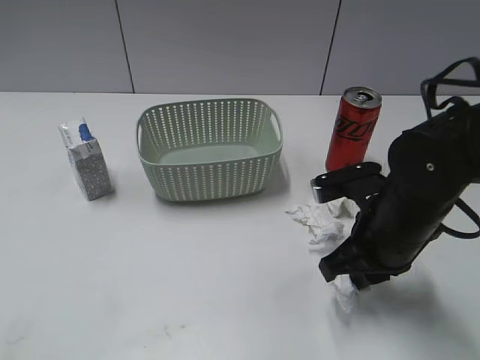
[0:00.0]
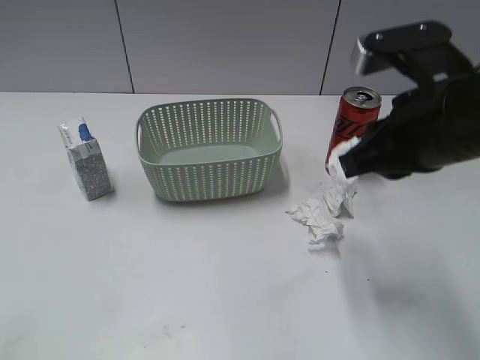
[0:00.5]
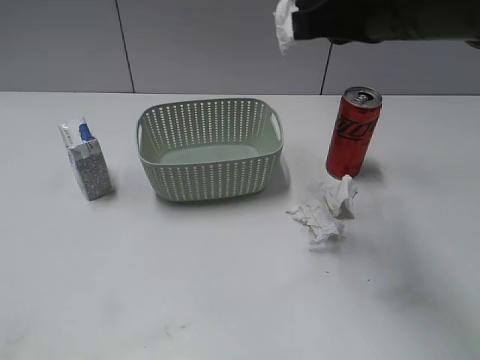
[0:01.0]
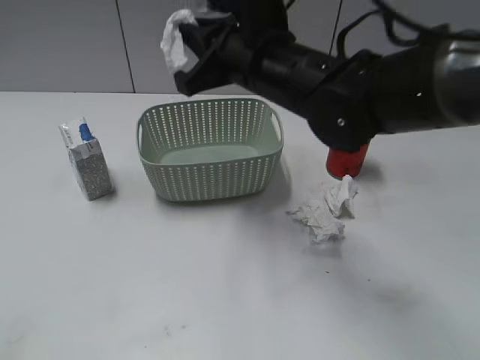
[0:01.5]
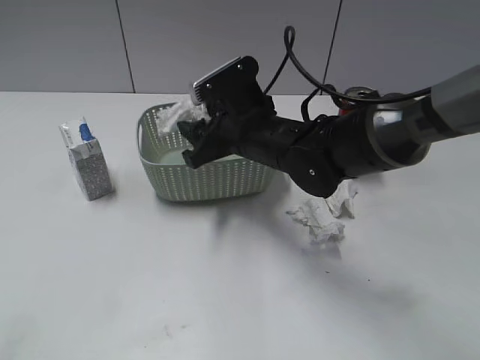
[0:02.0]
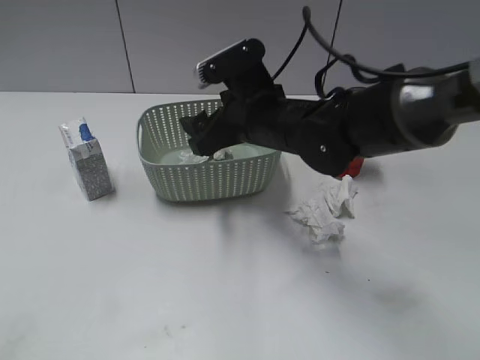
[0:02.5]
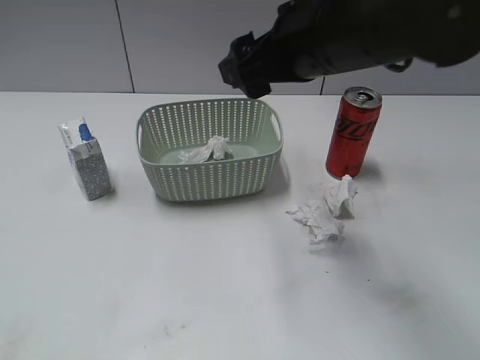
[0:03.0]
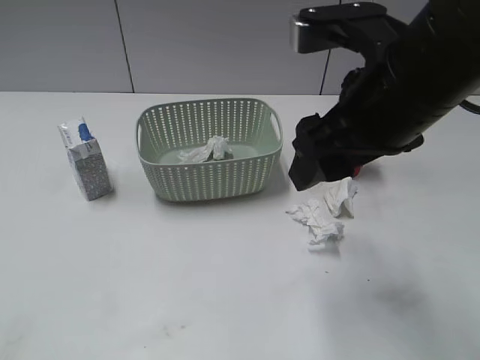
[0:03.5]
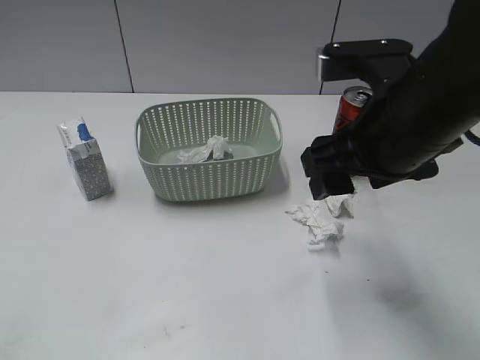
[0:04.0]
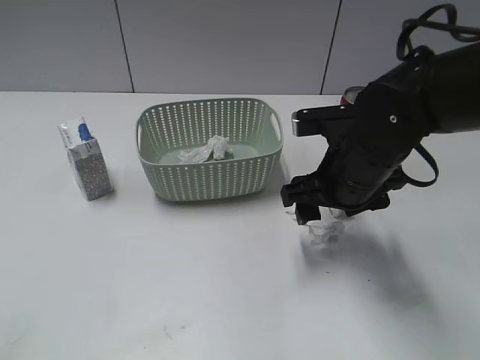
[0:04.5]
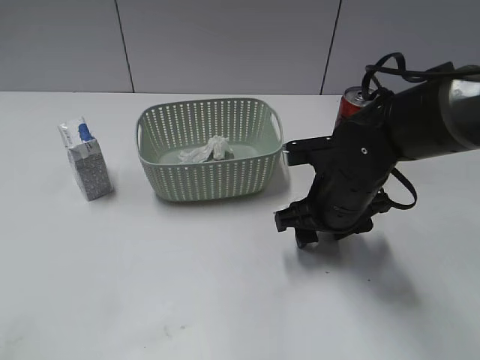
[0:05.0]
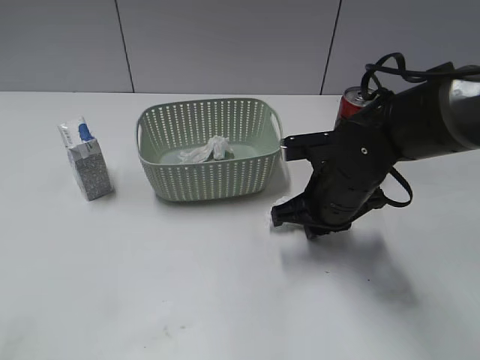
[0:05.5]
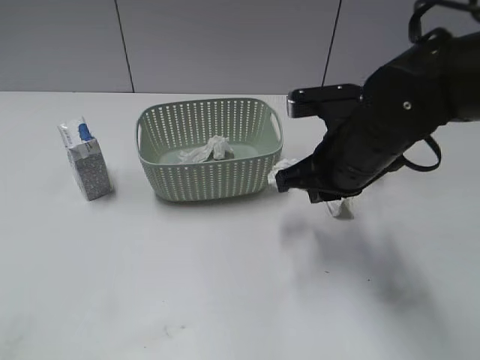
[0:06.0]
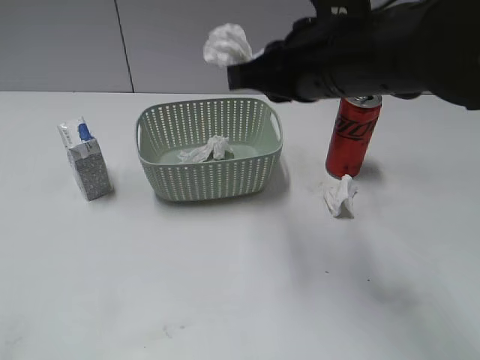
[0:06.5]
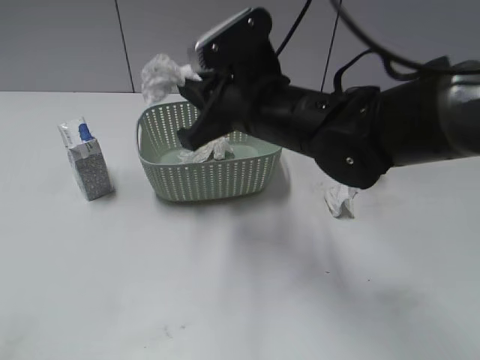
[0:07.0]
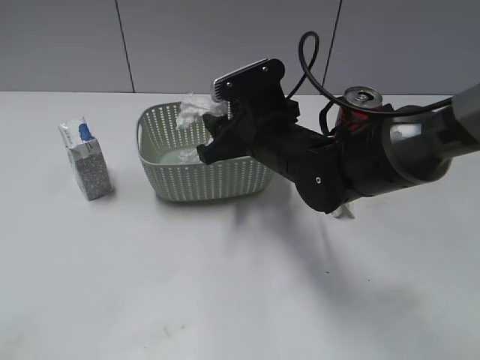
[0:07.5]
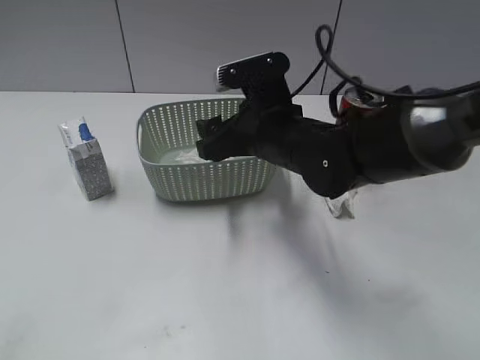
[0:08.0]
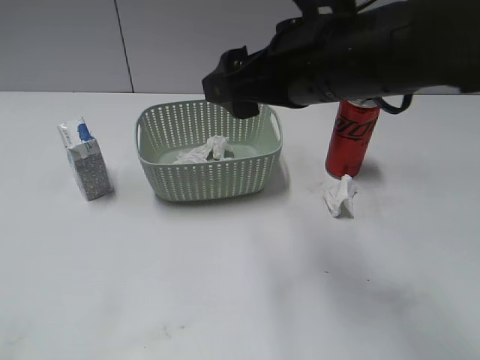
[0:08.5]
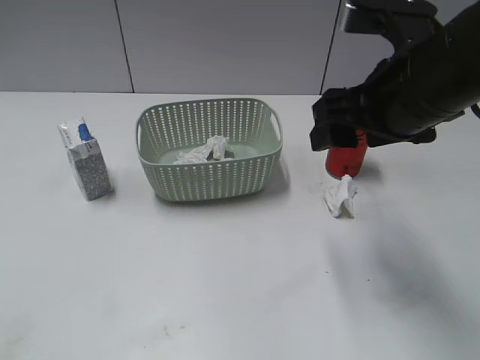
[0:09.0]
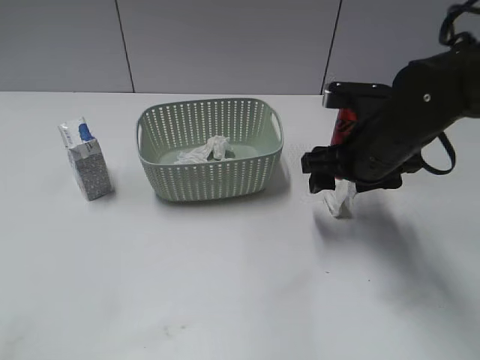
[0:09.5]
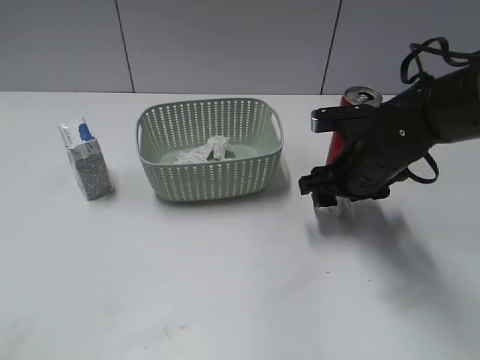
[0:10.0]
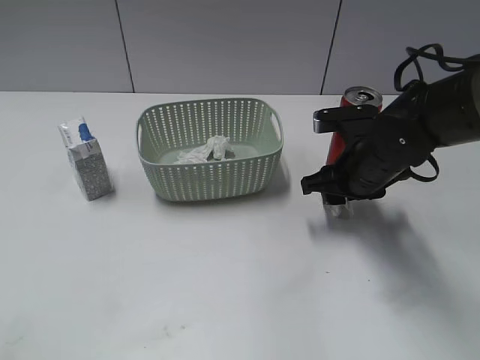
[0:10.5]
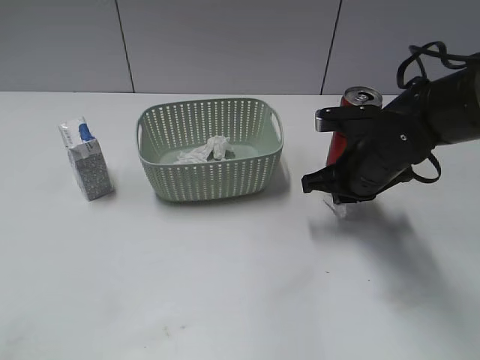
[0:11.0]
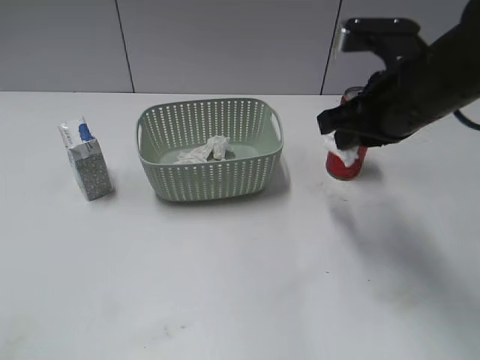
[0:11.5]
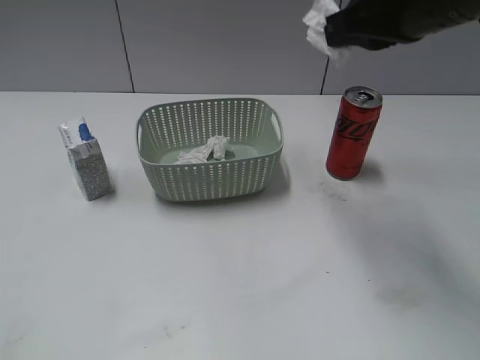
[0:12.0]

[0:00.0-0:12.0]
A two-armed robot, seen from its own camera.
Step, 0:00.5 to 0:02.0: Place the waste paper in the basket with right gripper.
Step, 0:02.5 to 0:05.5: Grasp the waste paper with right gripper.
Step, 0:06.0 to 0:08.0: Place the waste paper in the basket with right gripper.
Step, 0:08.5 to 0:10.5: Grasp the waste paper with right gripper.
0:00.0 to 0:02.0: The right gripper moves to the left and forward, approximately 15 cm, moves about 20 cm upward and comes back, and opens its fingers.
0:02.0 to 0:04.0: The right gripper heads upward, backward and to the right, covering some 20 cm.
0:04.0 to 0:06.0: The right gripper shifts roughly 10 cm downward and forward, and closes its fingers.
0:06.0 to 0:08.0: The right gripper moves to the left, roughly 5 cm, reaches roughly 10 cm upward, then returns, and opens.
0:08.0 to 0:10.0: The right gripper travels to the right by approximately 10 cm, and goes upward and returns, roughly 15 cm each way.
0:10.0 to 0:12.0: The right gripper is displaced upward by roughly 20 cm, and closes up.

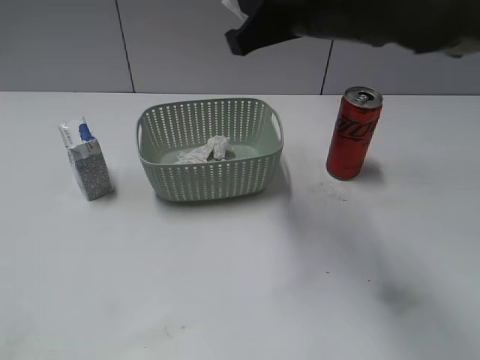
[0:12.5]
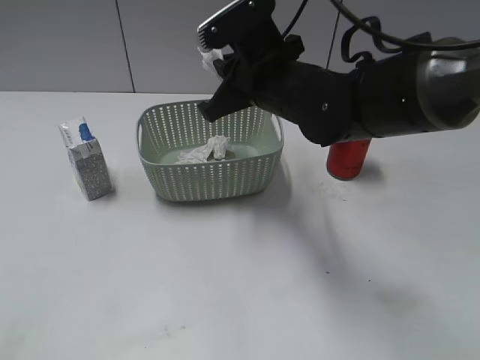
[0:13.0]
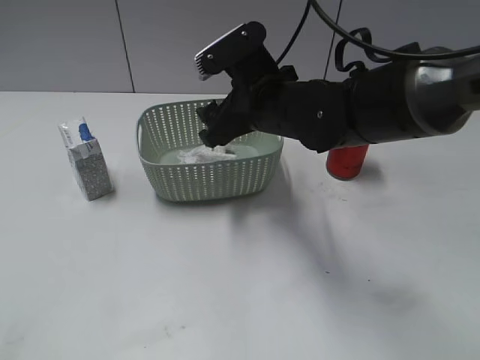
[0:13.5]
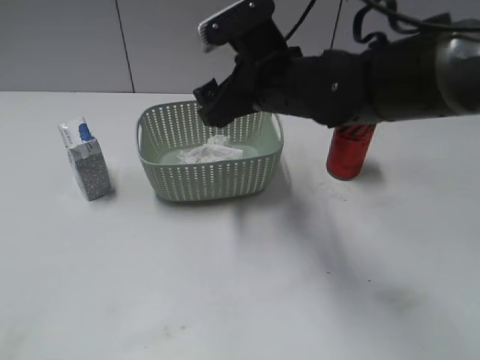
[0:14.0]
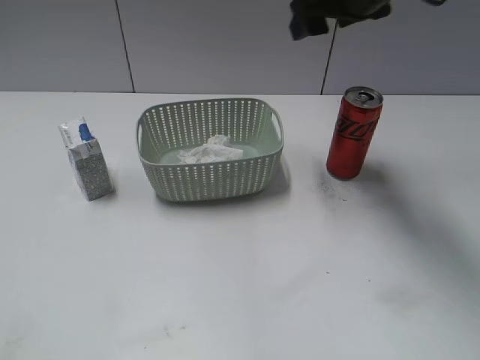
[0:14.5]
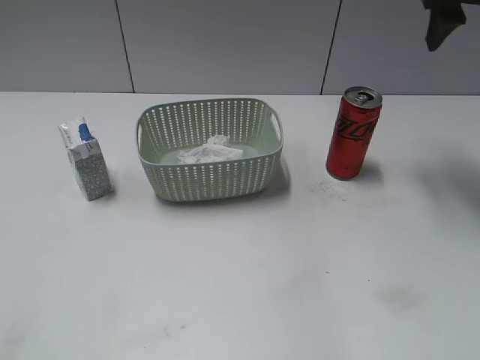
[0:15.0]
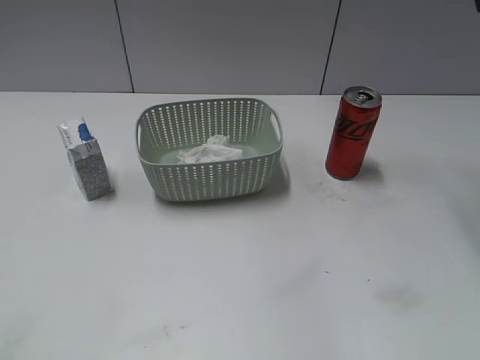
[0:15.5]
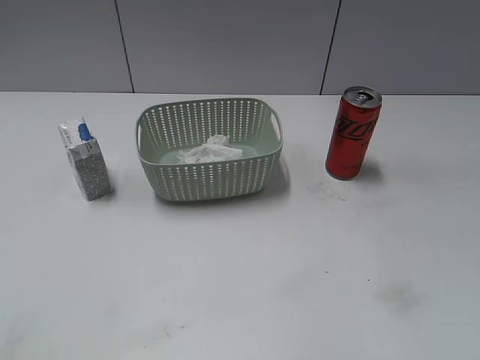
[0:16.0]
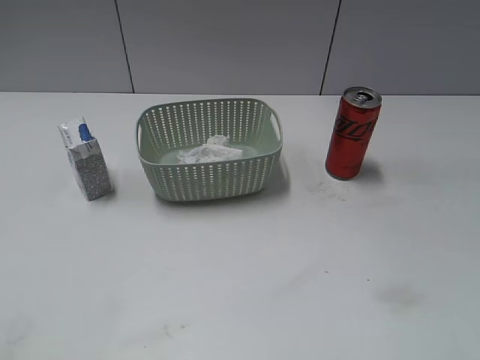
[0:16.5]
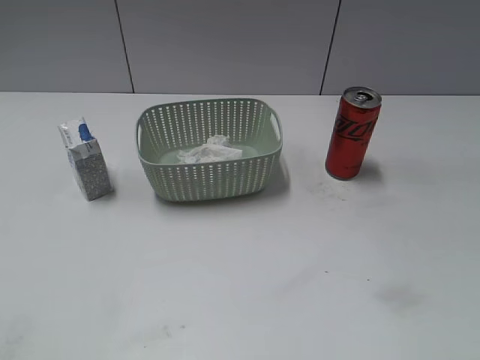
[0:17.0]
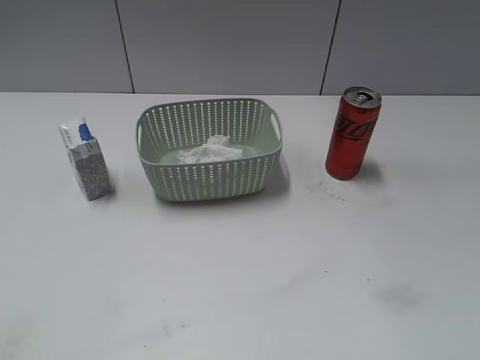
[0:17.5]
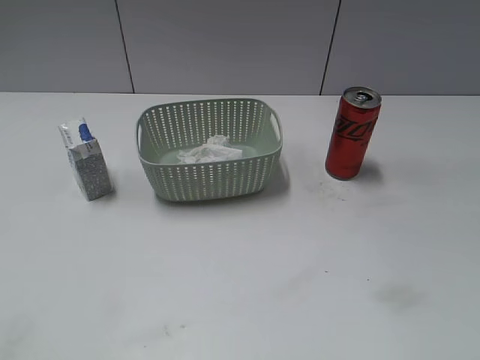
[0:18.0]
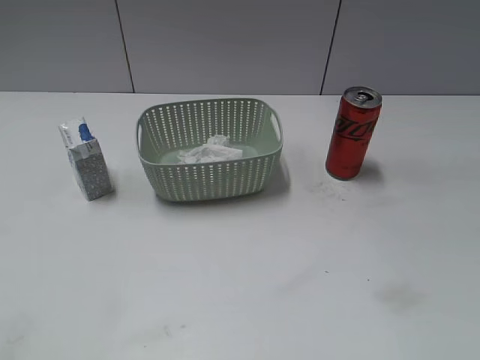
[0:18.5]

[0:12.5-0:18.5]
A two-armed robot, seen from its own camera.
0:12.5 to 0:14.5: The right gripper travels forward by some 10 cm, reaches roughly 10 cm downward, then returns, and opens its fingers.
0:14.5 to 0:16.5: The right gripper heads backward and to the right, covering roughly 35 cm.

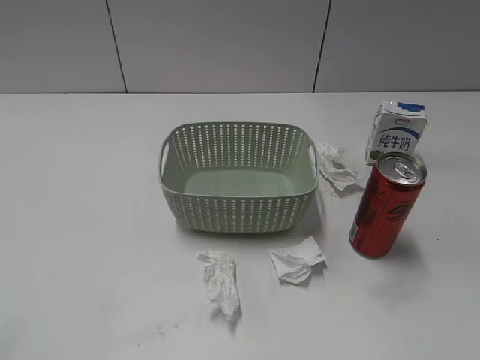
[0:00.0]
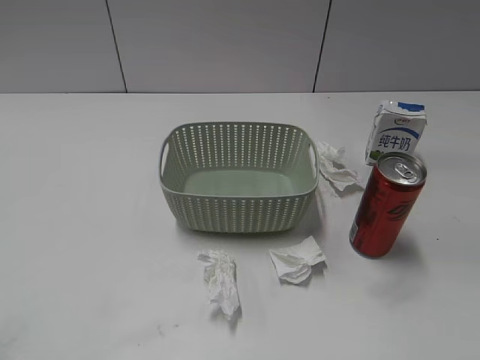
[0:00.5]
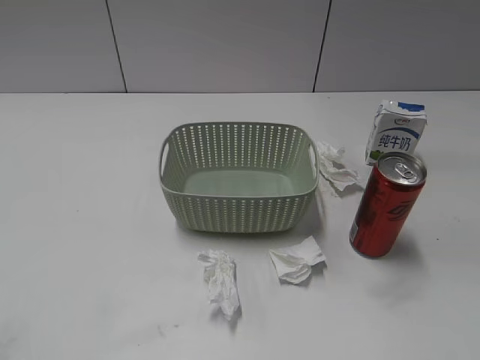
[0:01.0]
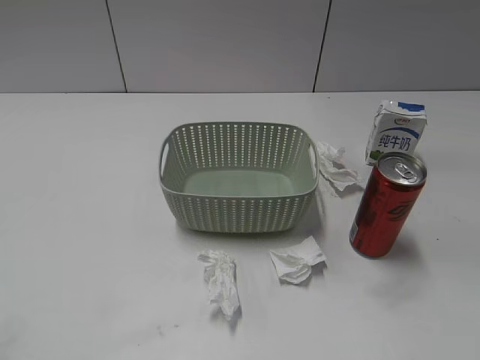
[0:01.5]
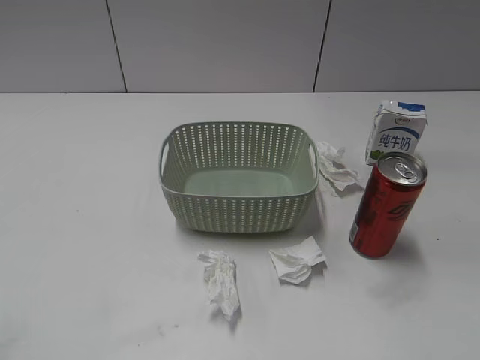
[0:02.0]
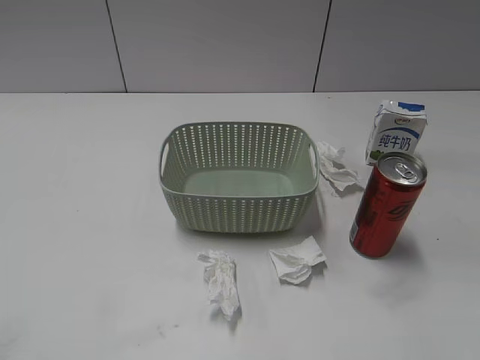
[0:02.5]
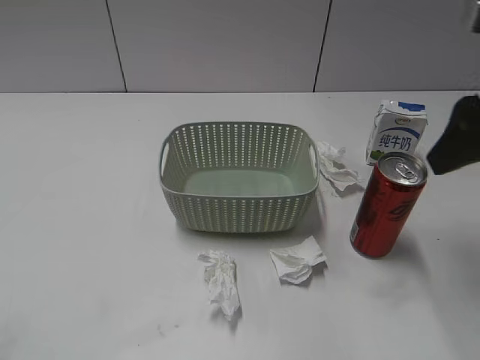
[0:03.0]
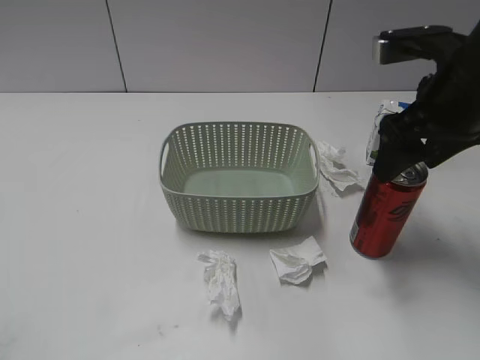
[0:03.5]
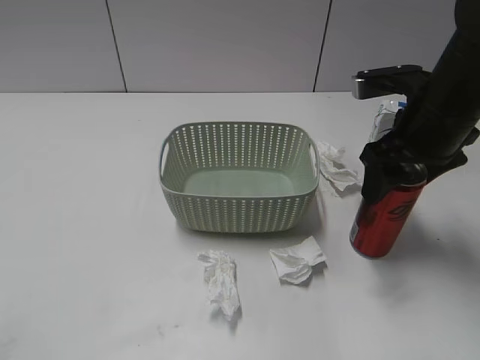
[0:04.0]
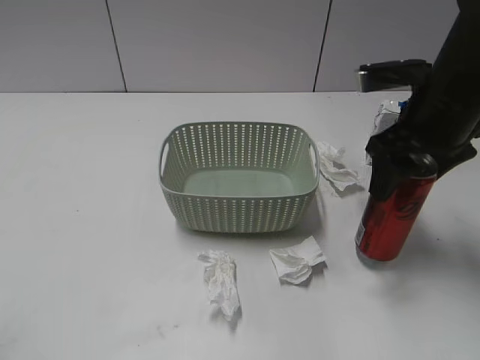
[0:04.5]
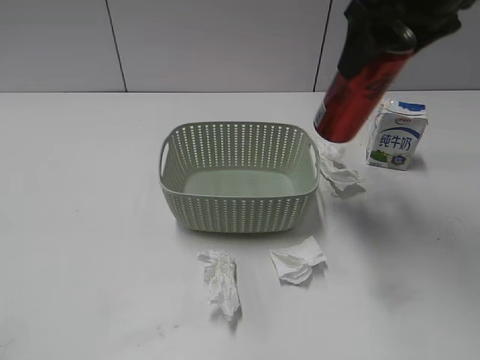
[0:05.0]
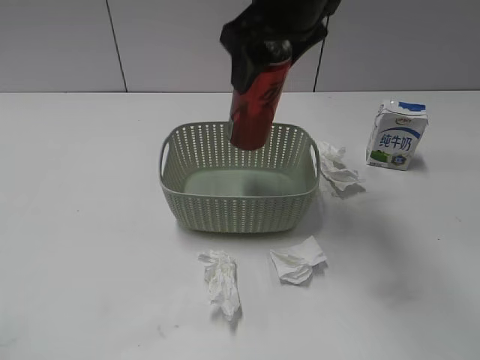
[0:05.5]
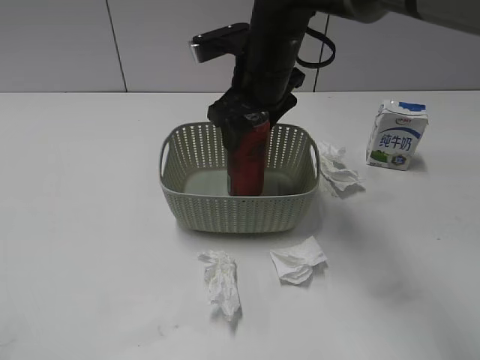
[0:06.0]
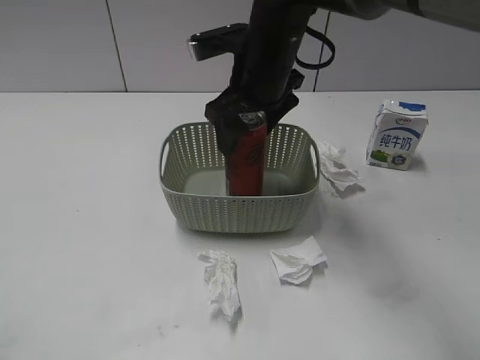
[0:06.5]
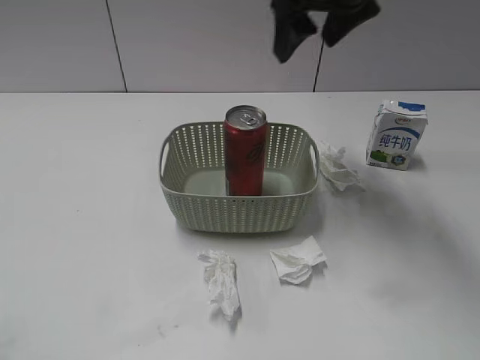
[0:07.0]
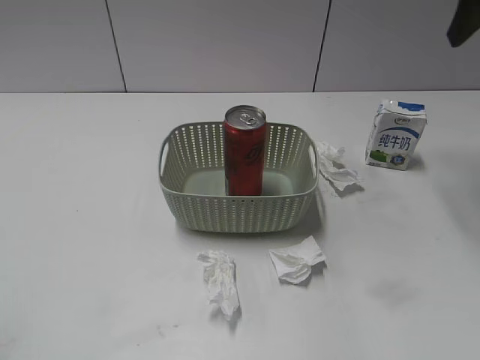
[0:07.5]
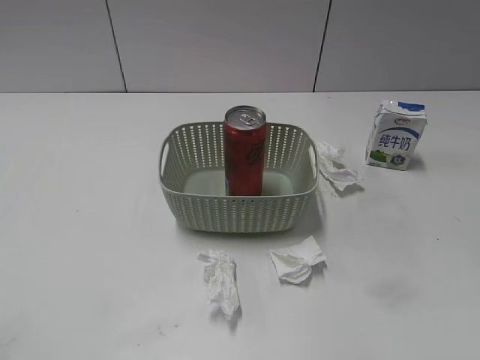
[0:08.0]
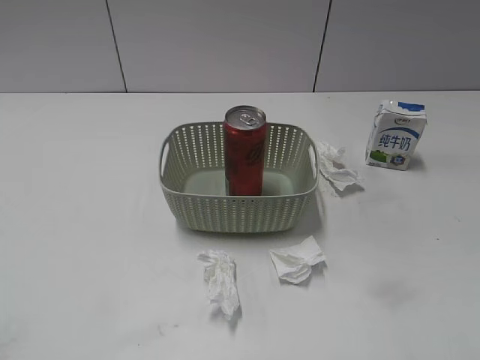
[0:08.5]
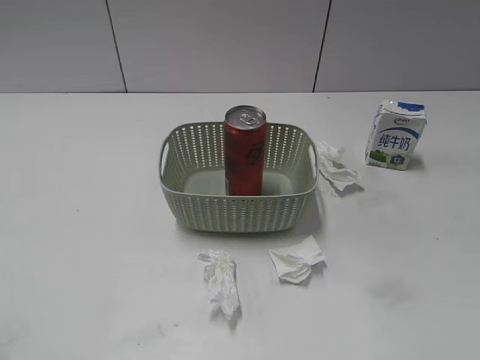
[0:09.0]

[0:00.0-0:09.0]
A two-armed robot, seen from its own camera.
Step, 0:03.0 to 0:04.0: Grasp the cola can with right gripper.
Step, 0:04.5 to 0:06.5: Place the cola can in the basket with right gripper.
0:02.0 to 0:04.5: The right gripper travels forward by approximately 30 cm, and closes.
0:04.5 to 0:07.0: The right gripper is displaced to the left, upward and forward by about 15 cm, and opens.
0:07.0 to 0:09.0: The right gripper shifts about 40 cm backward and to the right, and closes up.
